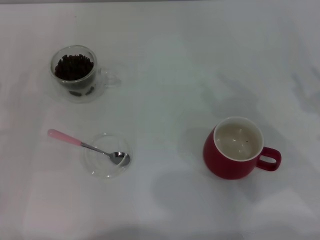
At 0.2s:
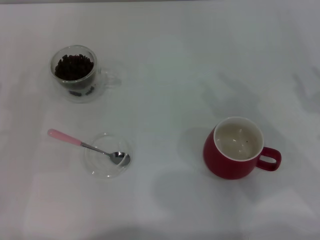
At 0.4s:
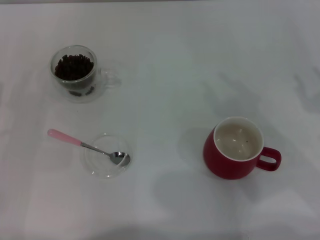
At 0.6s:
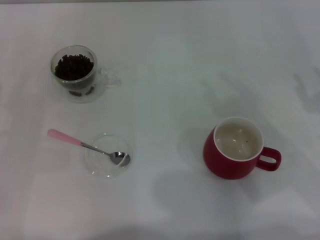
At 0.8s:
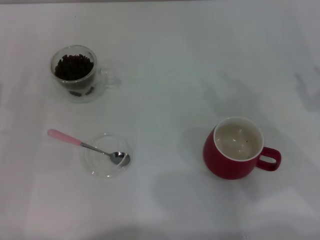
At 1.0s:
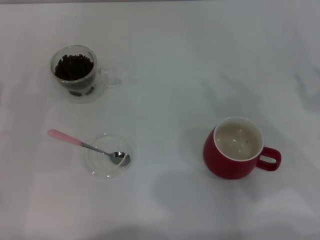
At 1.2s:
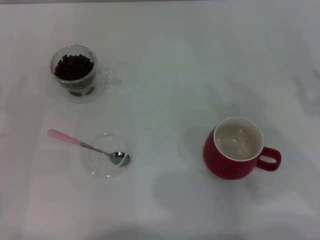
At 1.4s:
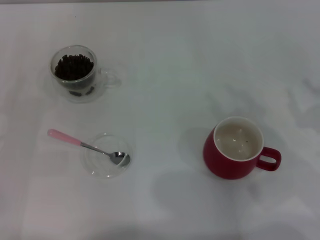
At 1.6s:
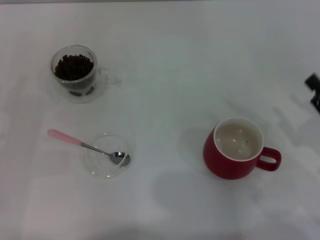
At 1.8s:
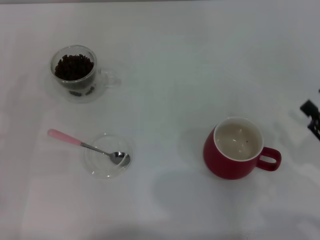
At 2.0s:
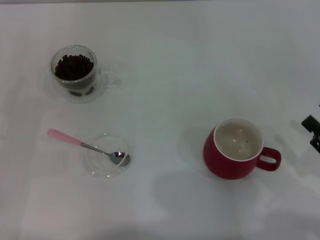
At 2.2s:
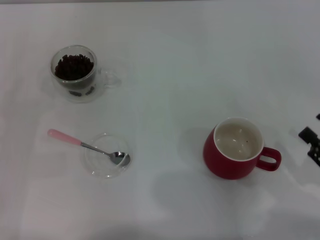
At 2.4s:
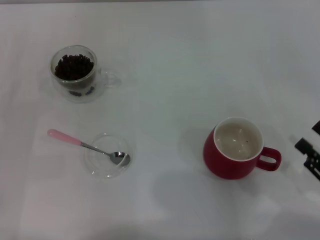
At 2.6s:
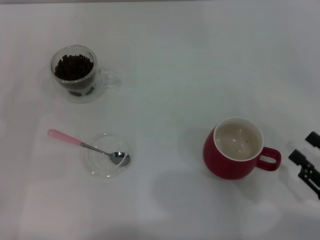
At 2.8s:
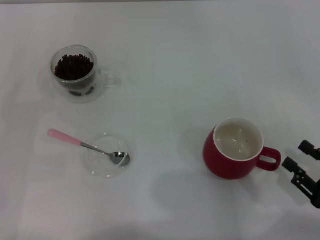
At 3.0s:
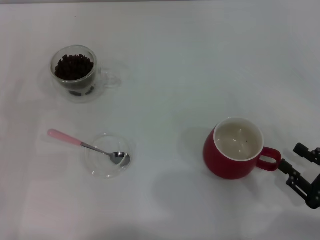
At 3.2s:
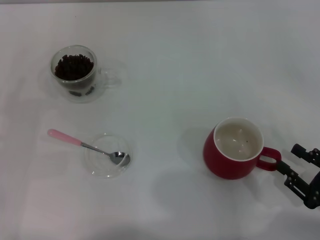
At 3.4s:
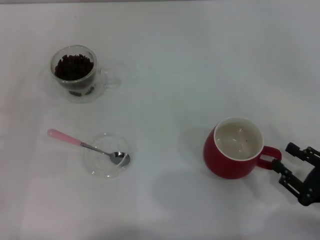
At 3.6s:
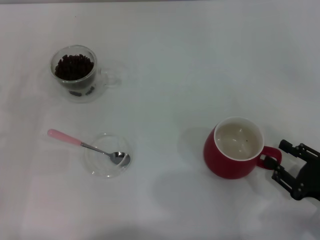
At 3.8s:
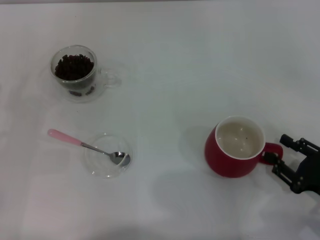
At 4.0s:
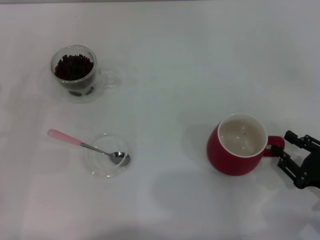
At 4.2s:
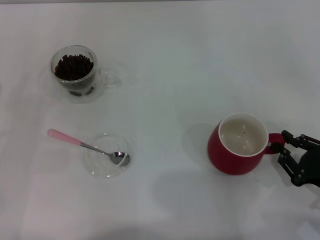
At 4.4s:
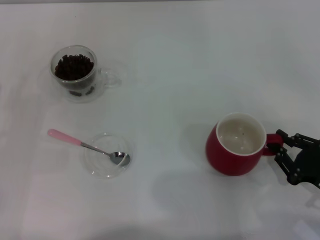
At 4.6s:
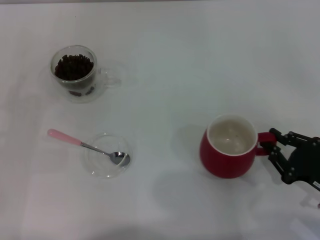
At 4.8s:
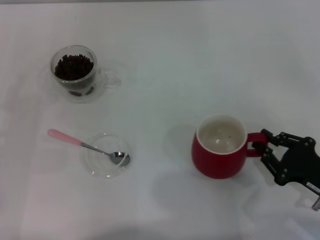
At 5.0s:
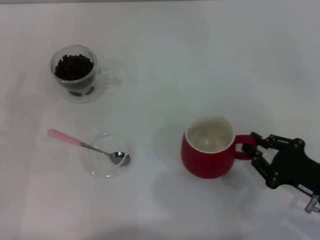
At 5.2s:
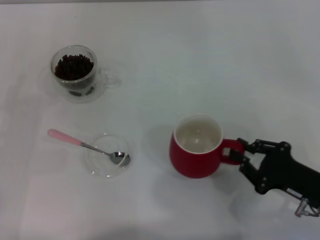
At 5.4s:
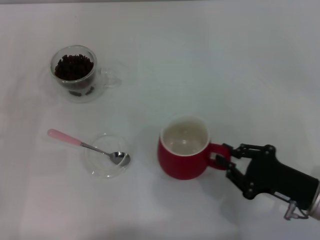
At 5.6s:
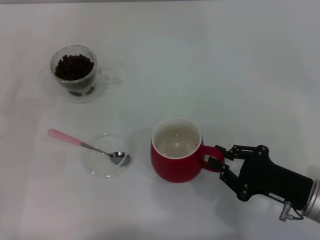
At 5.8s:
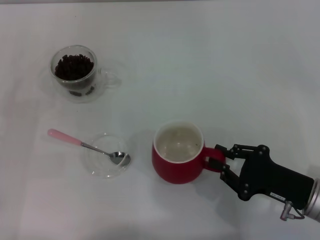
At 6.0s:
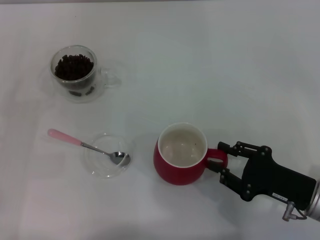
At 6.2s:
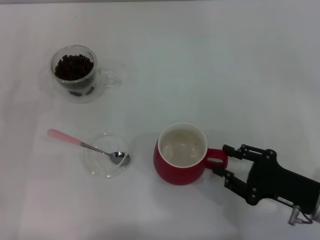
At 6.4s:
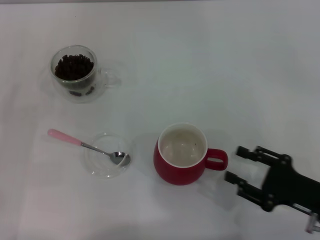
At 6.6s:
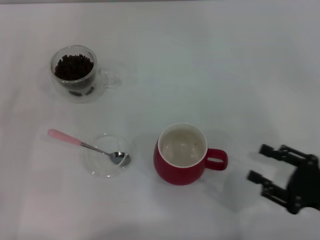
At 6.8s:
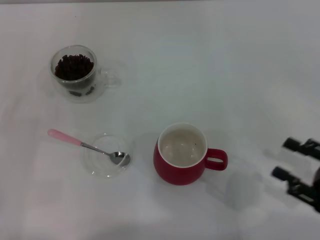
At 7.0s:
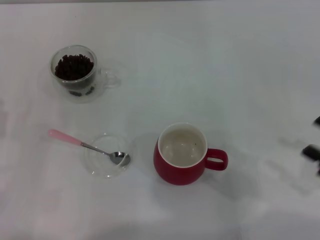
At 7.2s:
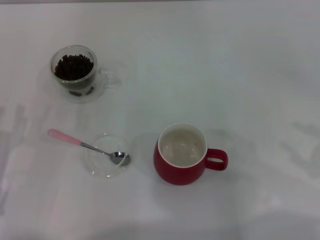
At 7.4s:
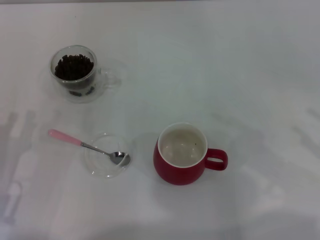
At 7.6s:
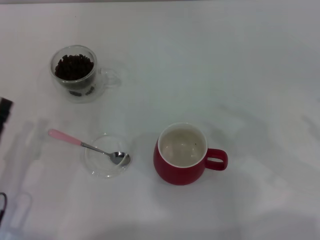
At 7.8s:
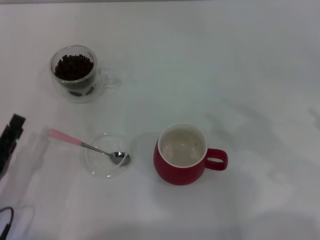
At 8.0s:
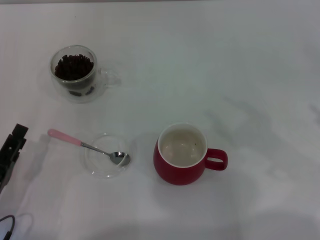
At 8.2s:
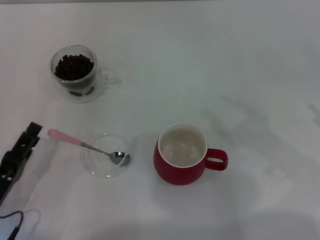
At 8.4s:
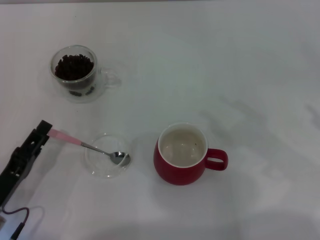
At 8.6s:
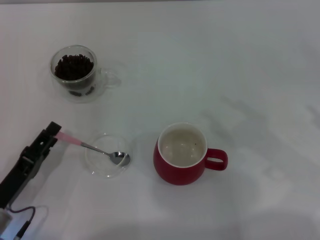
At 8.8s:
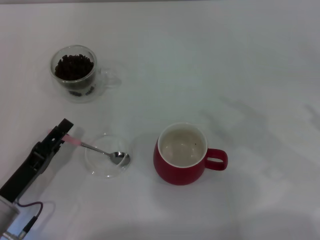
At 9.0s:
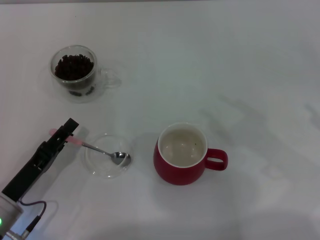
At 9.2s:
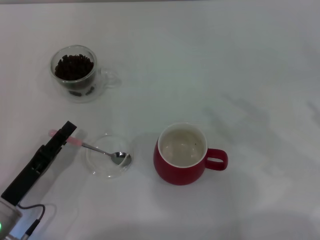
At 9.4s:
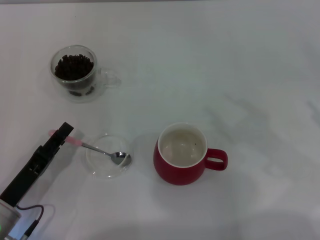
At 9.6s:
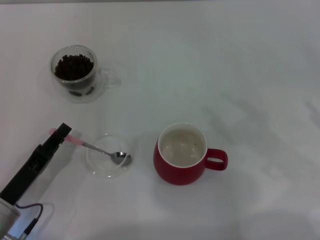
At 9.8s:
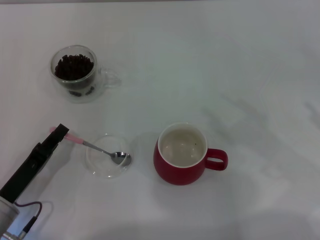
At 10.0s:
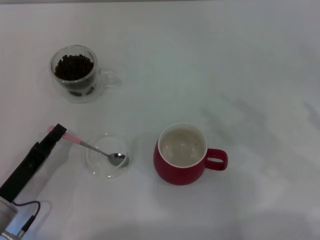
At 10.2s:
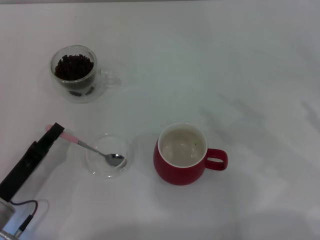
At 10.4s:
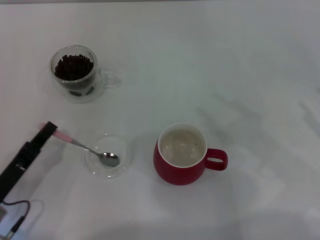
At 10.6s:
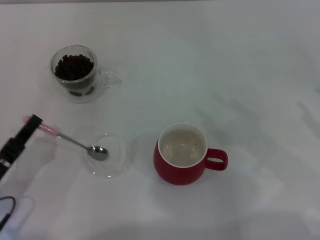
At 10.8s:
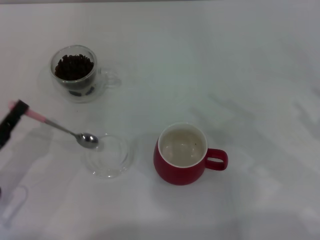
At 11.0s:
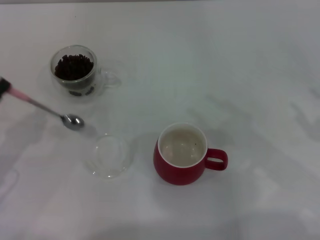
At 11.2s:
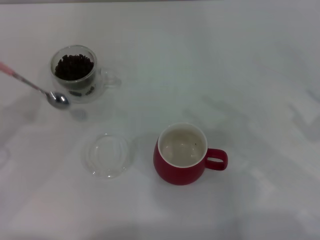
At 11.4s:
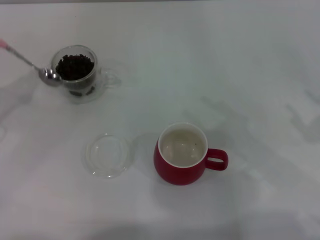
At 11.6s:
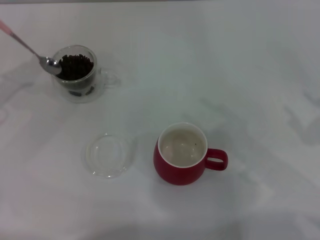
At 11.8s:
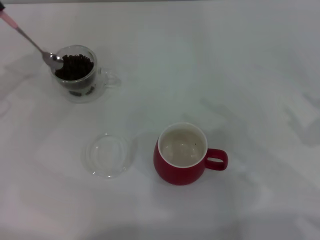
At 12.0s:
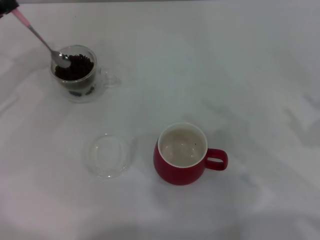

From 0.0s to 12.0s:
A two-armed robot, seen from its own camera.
Task of the whole recording: Use a pink spoon to take out the coffee beans from the glass and pour them into the red cup.
Step, from 0.0s to 6.6s: Move the cup to the center of view with the left gripper.
Step, from 6.8s to 10.8s: Pick up the spoon with the right gripper.
From 1.6s to 3.0s: The right gripper shifts some 5 cm backward.
From 3.0s to 4.4s: The right gripper closes.
From 4.4s to 6.0s: The right gripper moves to the left, about 5 cm.
From 6.0s to 7.6s: The right gripper travels to the right and upward by roughly 15 cm, and opens up. Meanwhile the left gripper goes about 10 cm backward and to the right.
From 9.0s to 10.4s: The left gripper closes.
From 10.4s to 12.0s: The left gripper shifts approximately 25 cm forward and upward.

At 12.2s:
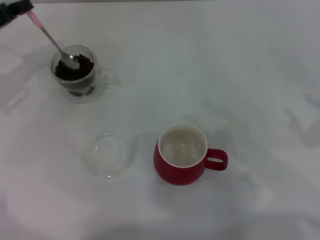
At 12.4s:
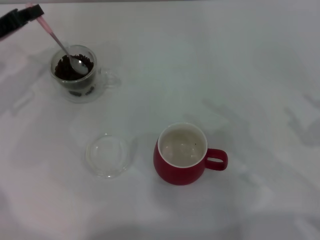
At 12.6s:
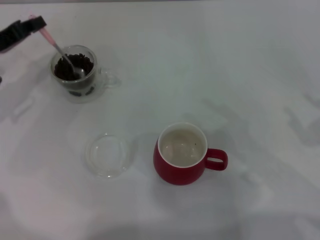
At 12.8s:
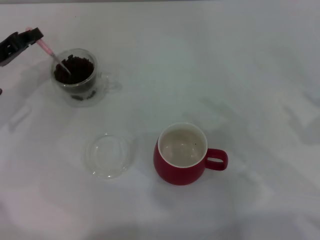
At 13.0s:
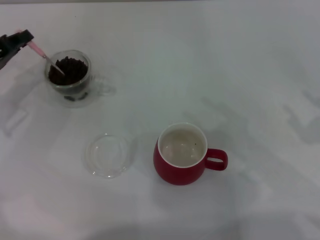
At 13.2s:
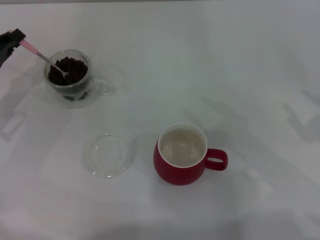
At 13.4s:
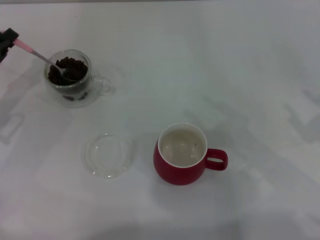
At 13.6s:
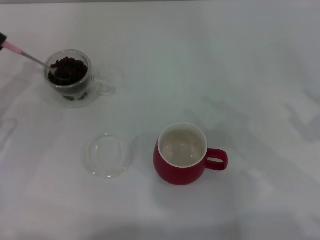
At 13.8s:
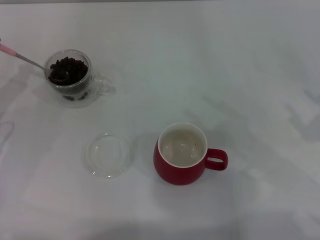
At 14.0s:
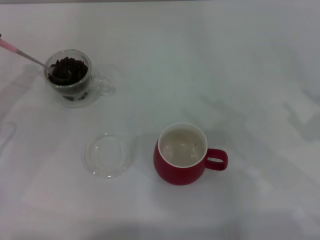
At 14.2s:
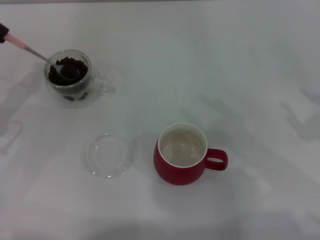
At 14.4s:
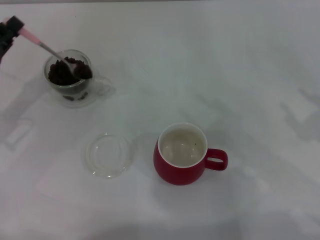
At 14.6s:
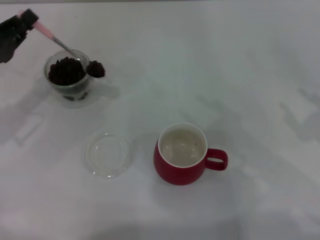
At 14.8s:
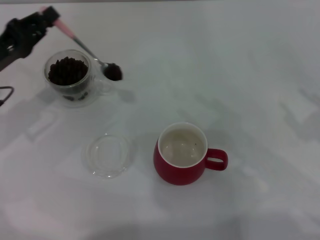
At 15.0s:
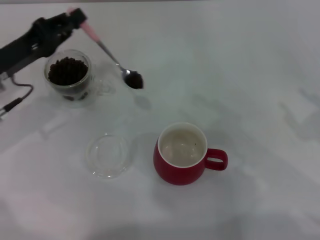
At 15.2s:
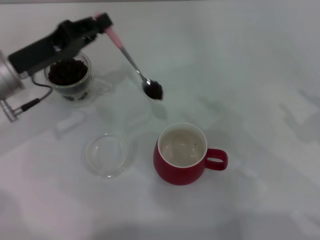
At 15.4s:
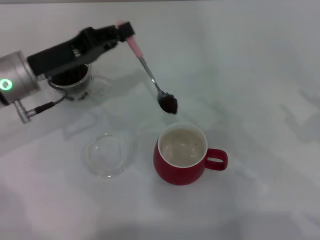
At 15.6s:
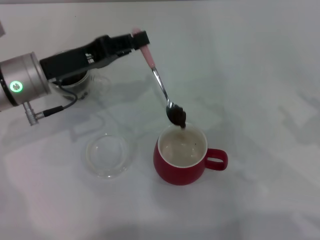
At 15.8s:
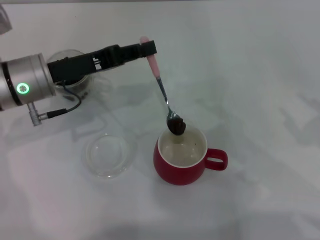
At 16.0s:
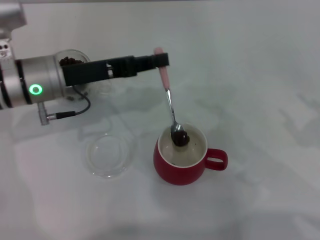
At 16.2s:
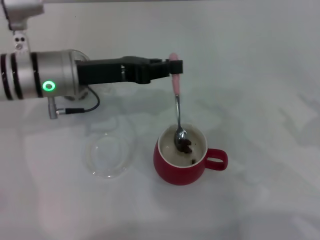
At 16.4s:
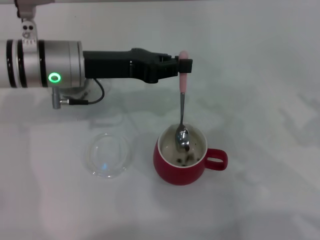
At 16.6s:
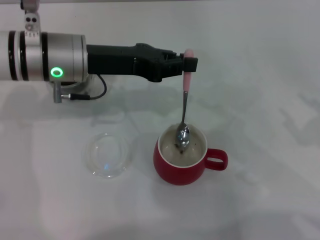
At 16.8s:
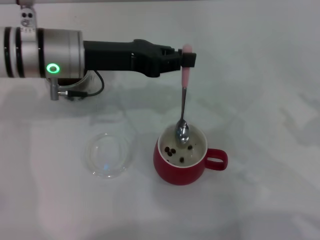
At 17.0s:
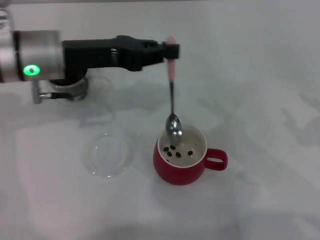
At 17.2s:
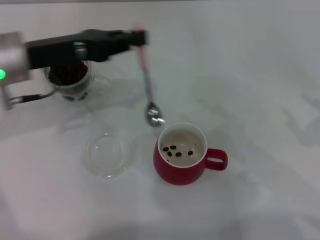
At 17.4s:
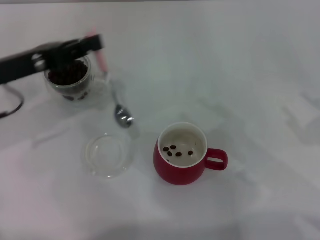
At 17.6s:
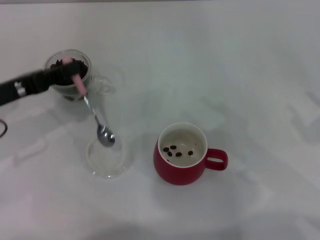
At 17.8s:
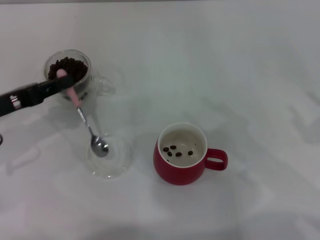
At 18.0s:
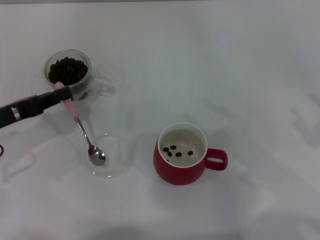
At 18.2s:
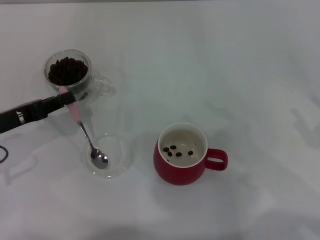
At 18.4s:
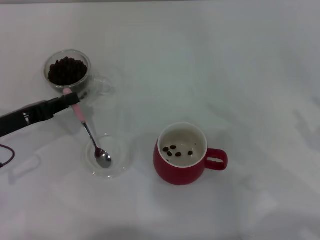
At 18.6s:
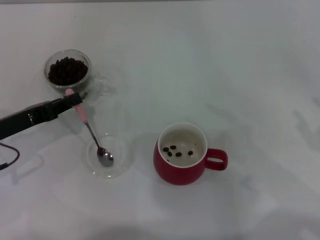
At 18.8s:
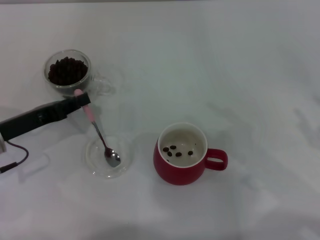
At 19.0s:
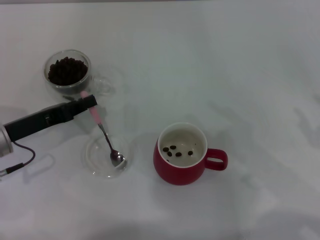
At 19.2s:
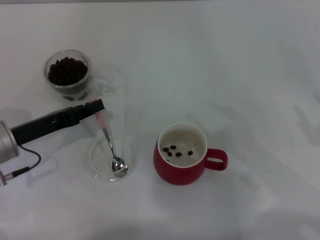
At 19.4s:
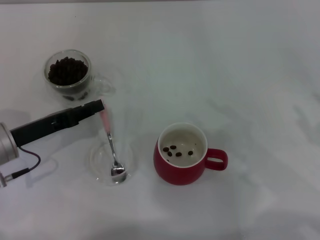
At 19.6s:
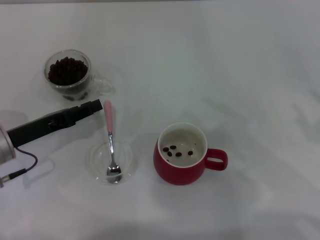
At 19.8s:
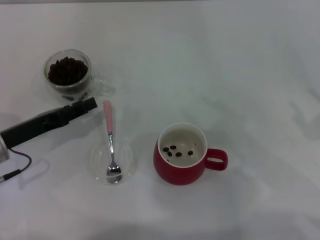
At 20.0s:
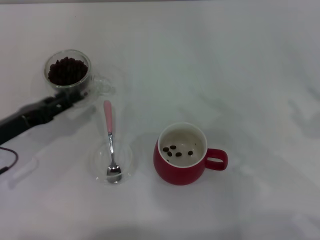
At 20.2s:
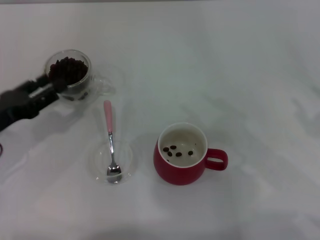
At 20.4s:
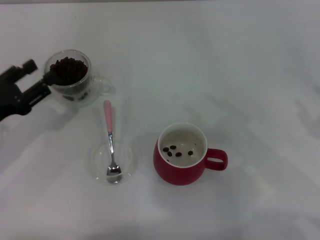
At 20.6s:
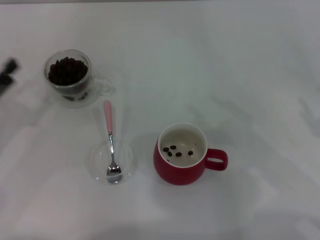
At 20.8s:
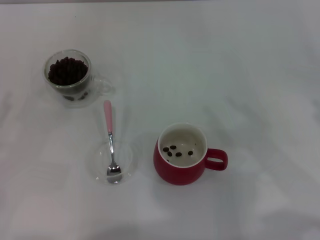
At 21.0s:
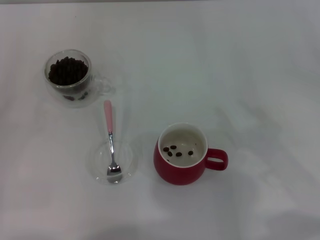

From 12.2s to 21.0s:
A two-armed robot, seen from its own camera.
Task of the whole recording: Use a pink spoon to take out the coffee beans from the glass and pour them into the red cup.
From 12.2s to 13.6s: The left gripper is displaced backward and downward by roughly 10 cm.
From 13.6s to 15.2s: The left gripper heads to the right, covering roughly 10 cm.
From 15.2s to 16.6s: The left gripper moves to the right, roughly 10 cm.
From 16.6s to 18.0s: The left gripper goes roughly 20 cm to the left, backward and downward.
From 18.0s to 19.6s: The left gripper ends up approximately 5 cm from where it was.
From 19.6s to 21.0s: The left gripper moves to the left and backward, some 15 cm, and opens up.

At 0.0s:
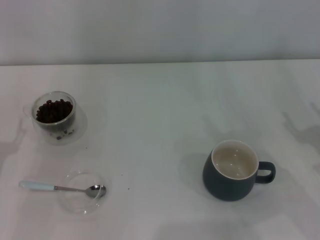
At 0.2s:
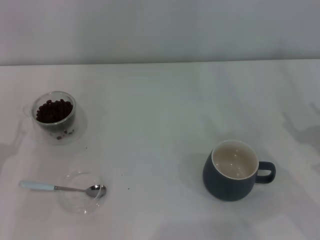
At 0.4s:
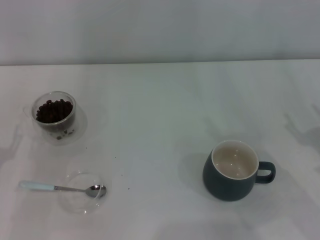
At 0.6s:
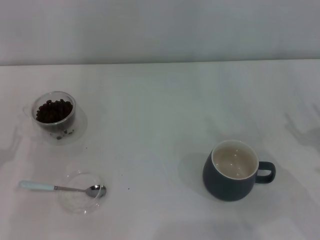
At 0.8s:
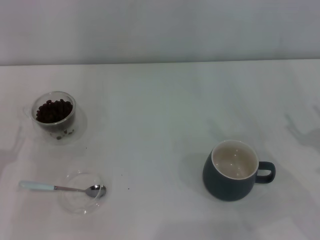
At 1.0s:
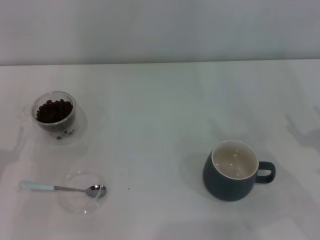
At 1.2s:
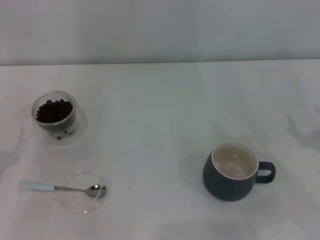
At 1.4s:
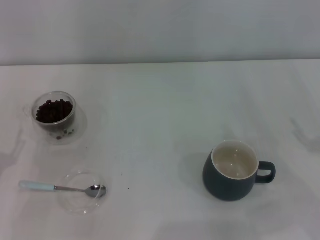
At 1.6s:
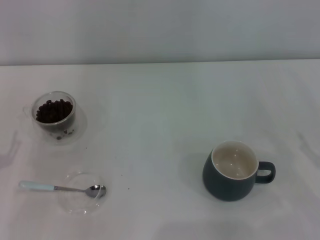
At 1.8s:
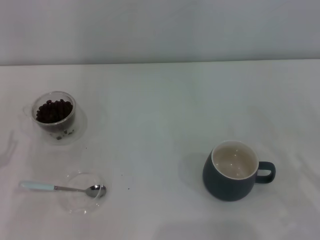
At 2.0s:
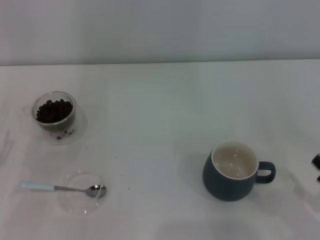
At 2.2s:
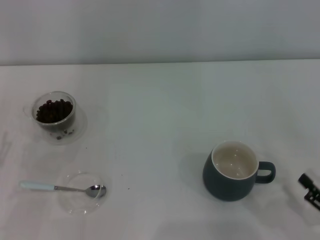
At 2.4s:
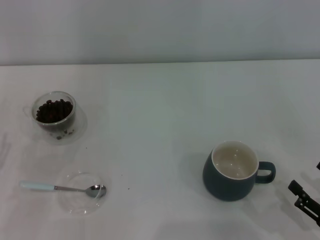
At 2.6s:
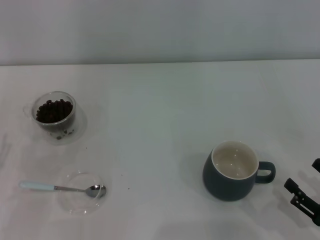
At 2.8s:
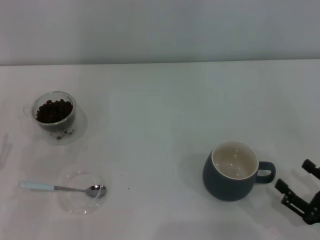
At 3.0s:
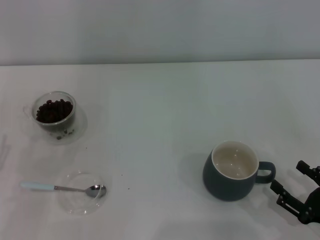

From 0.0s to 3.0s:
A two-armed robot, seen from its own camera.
Task of the whole recording: Use a blue spoon to take out the coffee beans from the glass and pour them into the gray cup.
From 1.6s to 3.0s: The right gripper shifts by roughly 10 cm.
